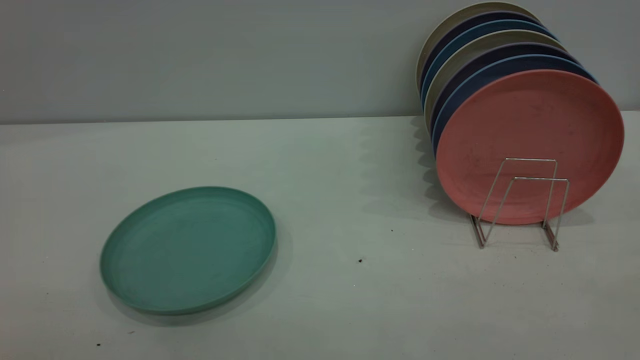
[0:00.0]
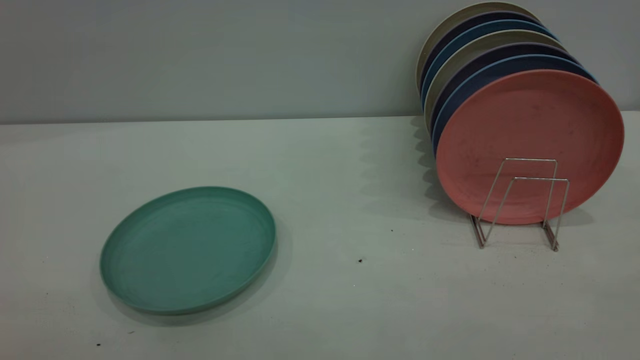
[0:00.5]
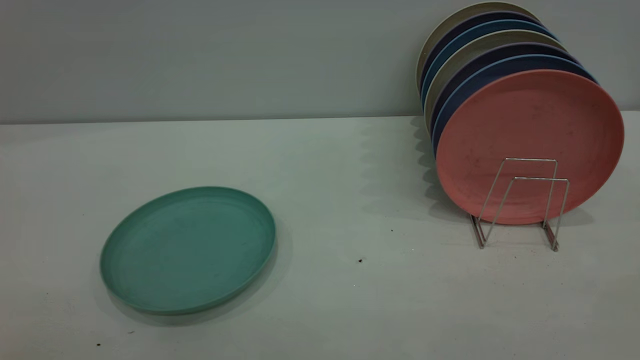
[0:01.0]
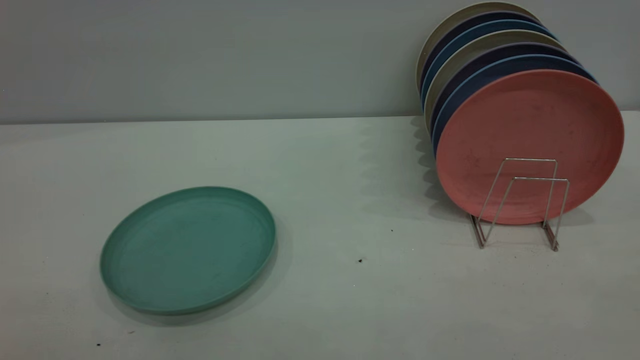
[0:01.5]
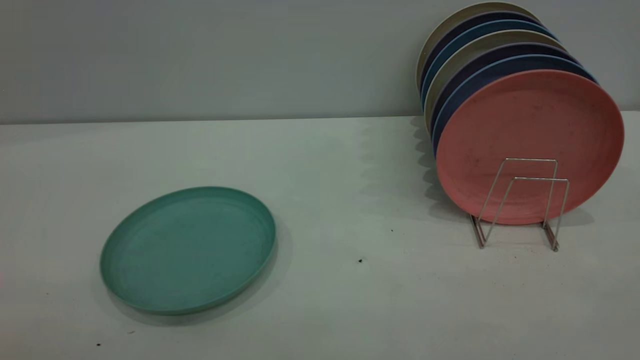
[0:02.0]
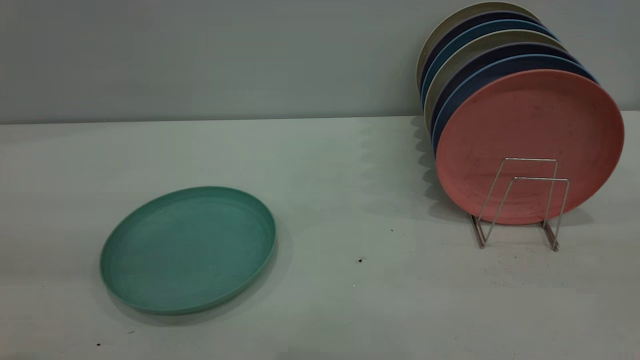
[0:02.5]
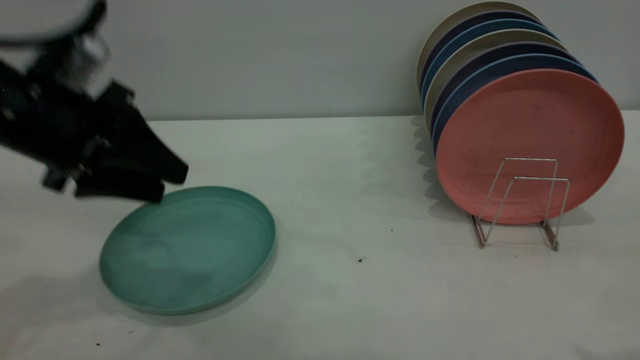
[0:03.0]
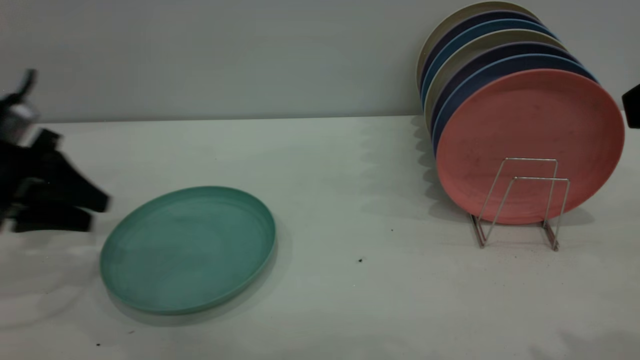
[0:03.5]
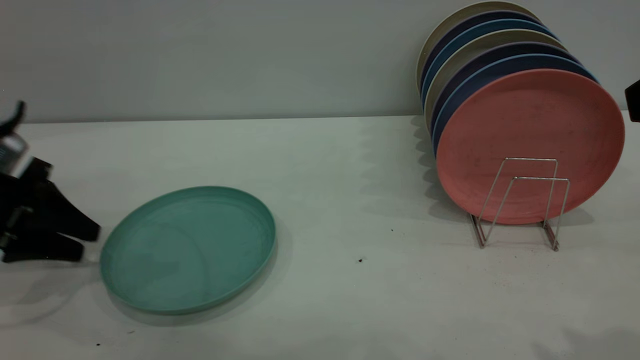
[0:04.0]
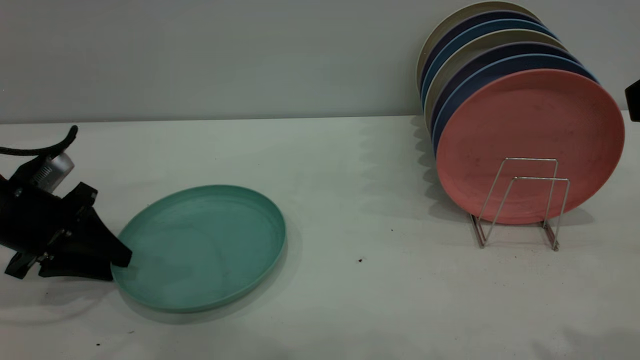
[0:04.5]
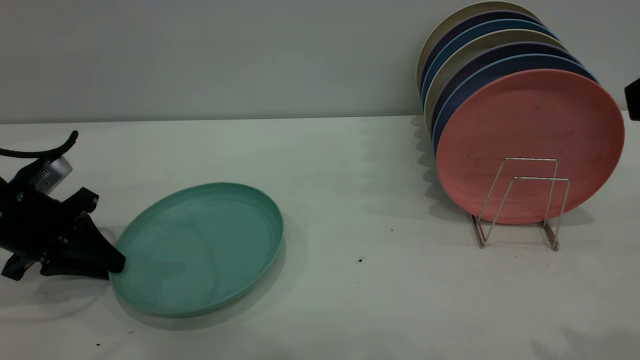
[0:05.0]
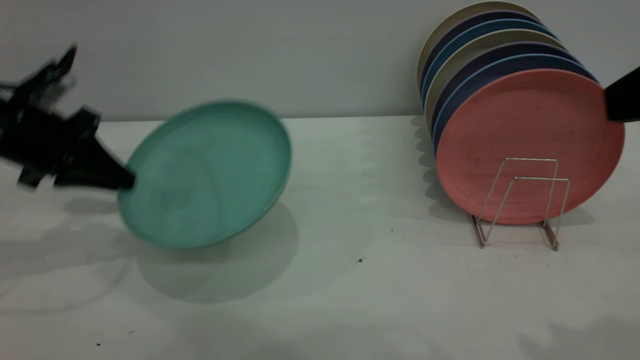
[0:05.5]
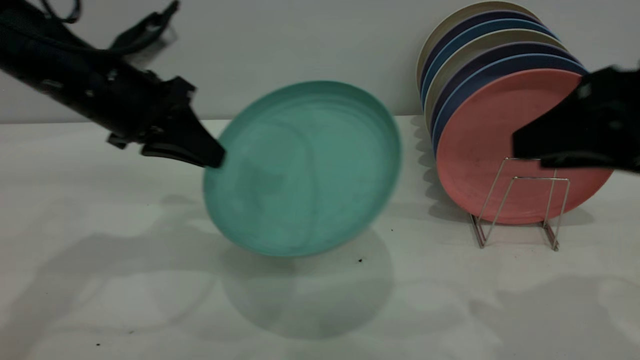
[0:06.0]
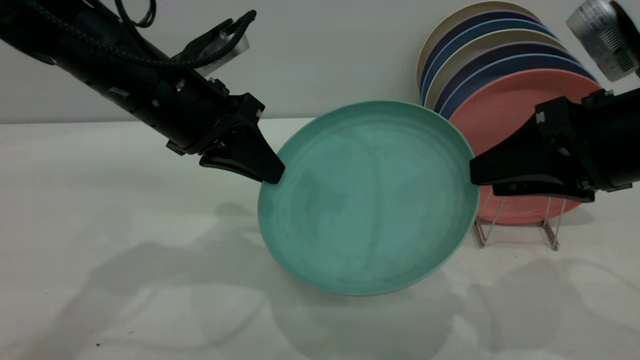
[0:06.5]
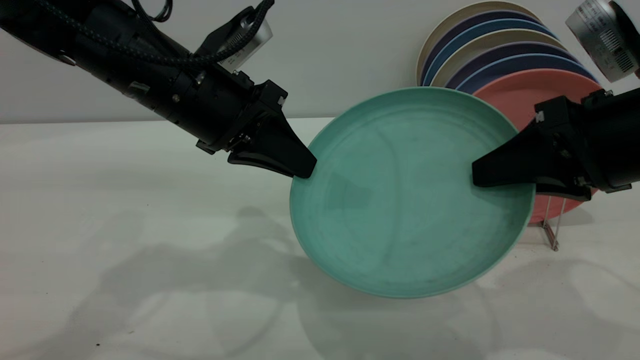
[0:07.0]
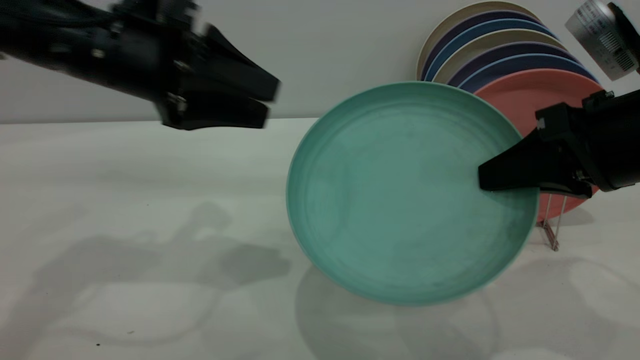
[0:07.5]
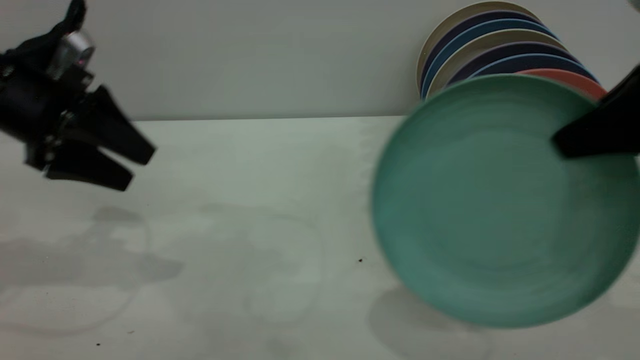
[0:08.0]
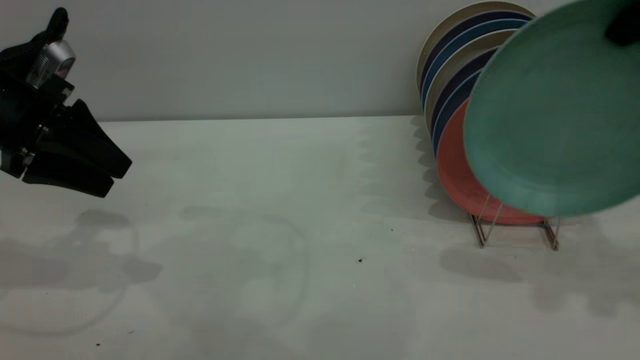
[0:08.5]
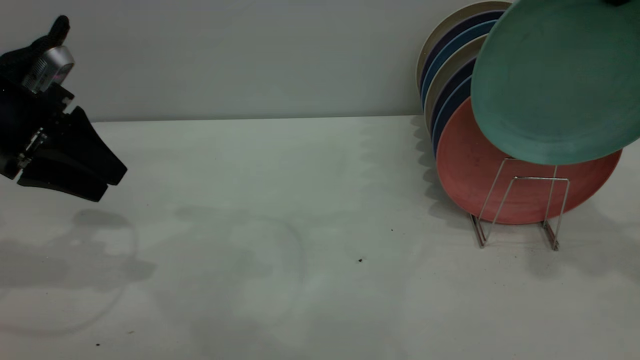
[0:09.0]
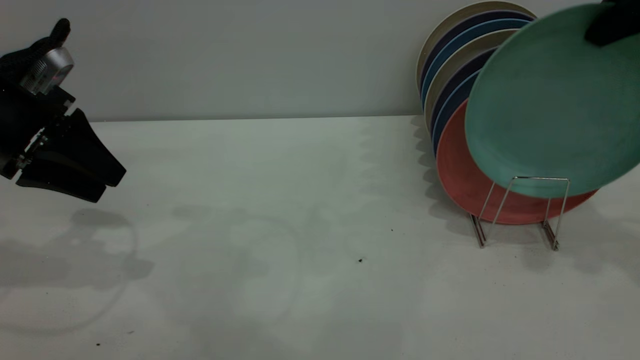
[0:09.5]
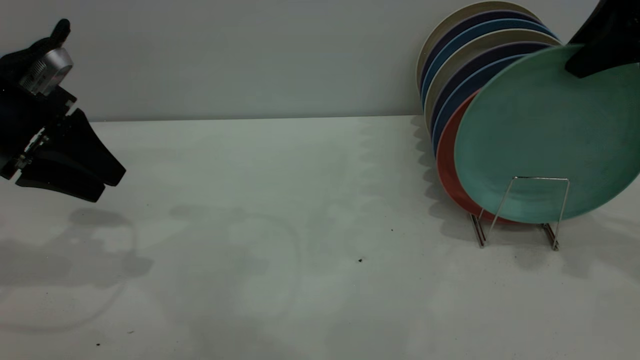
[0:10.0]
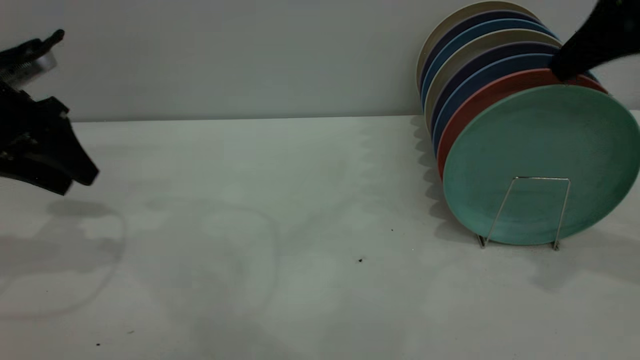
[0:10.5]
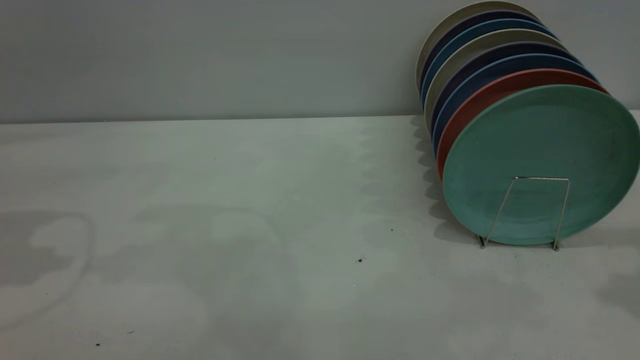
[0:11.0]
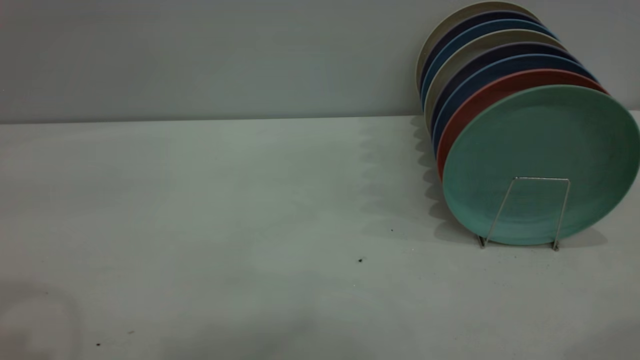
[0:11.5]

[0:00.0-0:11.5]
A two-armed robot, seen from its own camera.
Task of the whole recording: the left gripper grasp the green plate, the left gripper pass the green plate to the right gripper, and the right gripper place the green plate on the plate rack.
Step, 0:00.0 to 0:05.0: Pick up the plate with the right gripper.
Step, 0:05.5 to 0:07.5: Pass the plate from the right gripper to the left gripper.
Step, 0:08.0 to 0:10.5: Place the plate on the shelf.
0:02.0 to 0:04.0: The left gripper travels forward and downward by about 40 cm.
0:04.0 to 0:06.0: The right gripper travels downward and forward by approximately 10 cm; the left gripper is displaced to the right and upward by some 20 cm, and closes up.
0:06.0 to 0:07.5: The right gripper closes up. Meanwhile the left gripper reaches about 10 cm to the right, then returns, and opens.
0:07.5 to 0:09.5: The right gripper moves upward, forward and to the right, roughly 15 cm. Meanwhile the left gripper travels to the left by some 15 cm.
0:09.5 to 0:11.5: The left gripper travels upward and backward by about 25 cm; the right gripper travels backward and upward by approximately 25 cm, and opens.

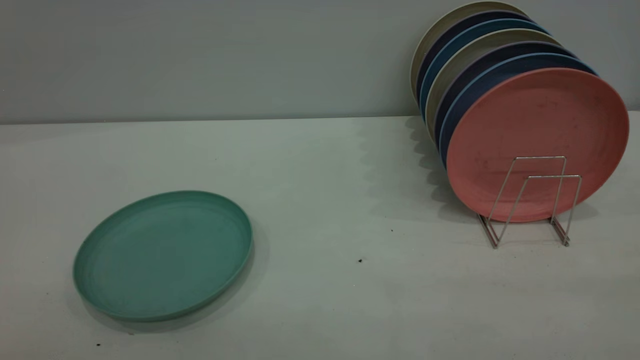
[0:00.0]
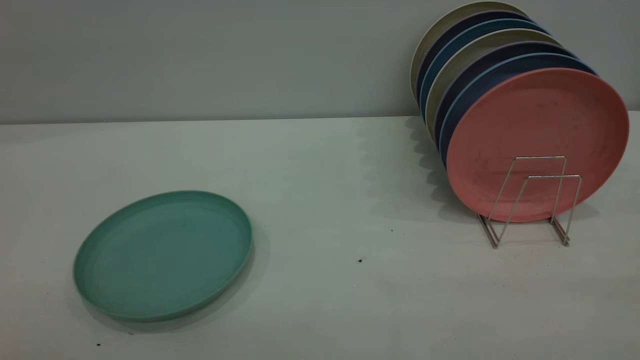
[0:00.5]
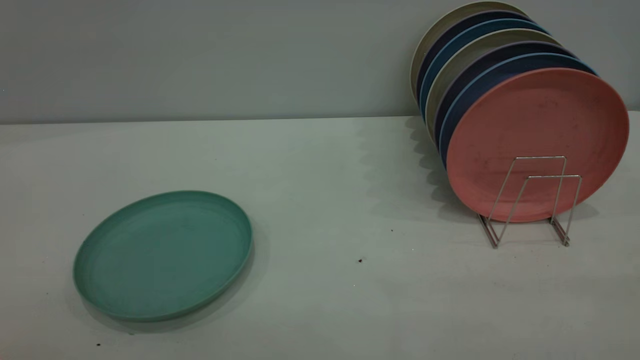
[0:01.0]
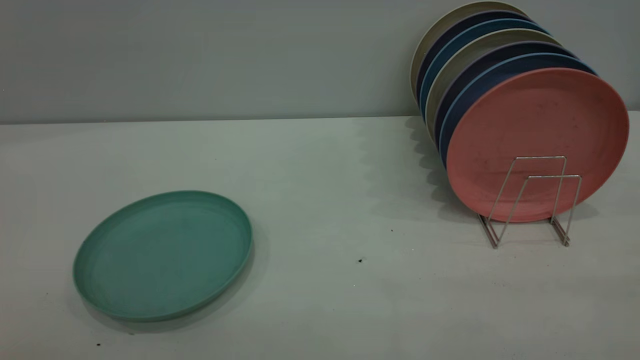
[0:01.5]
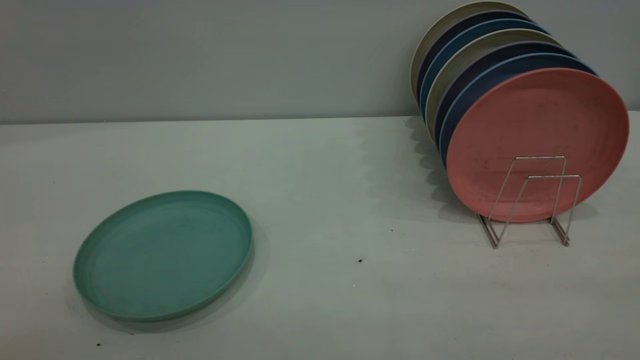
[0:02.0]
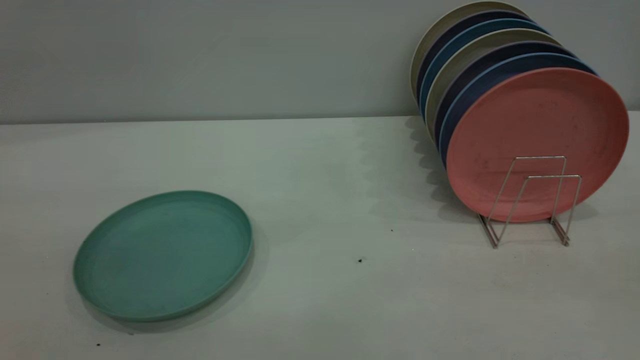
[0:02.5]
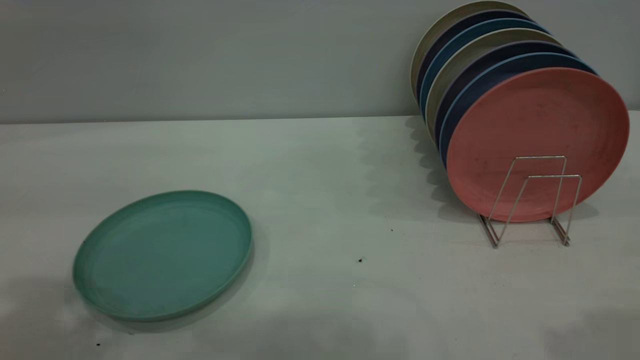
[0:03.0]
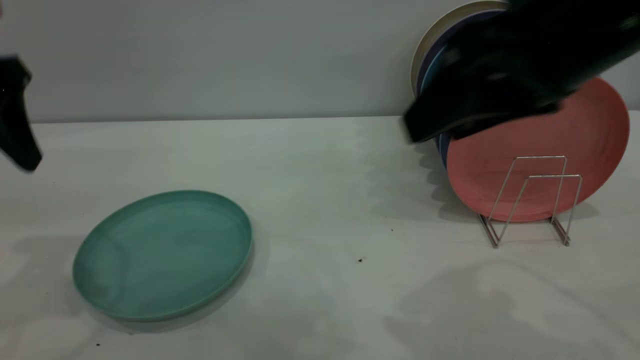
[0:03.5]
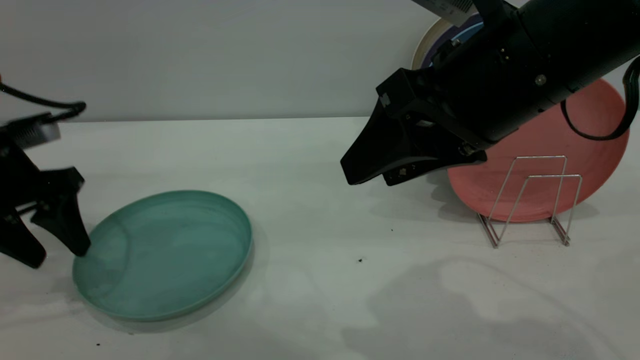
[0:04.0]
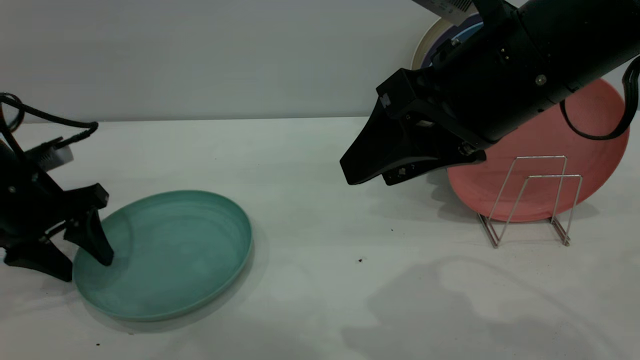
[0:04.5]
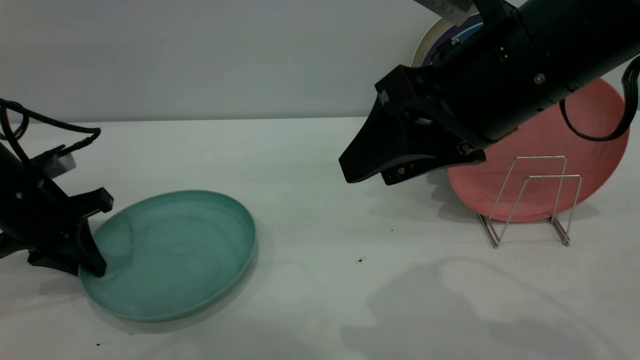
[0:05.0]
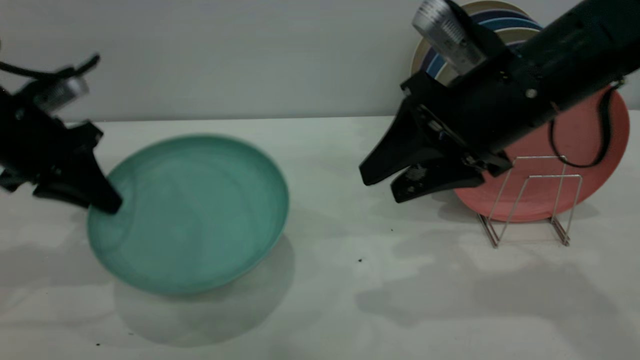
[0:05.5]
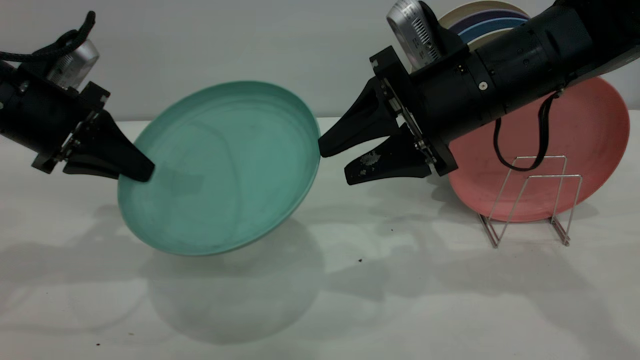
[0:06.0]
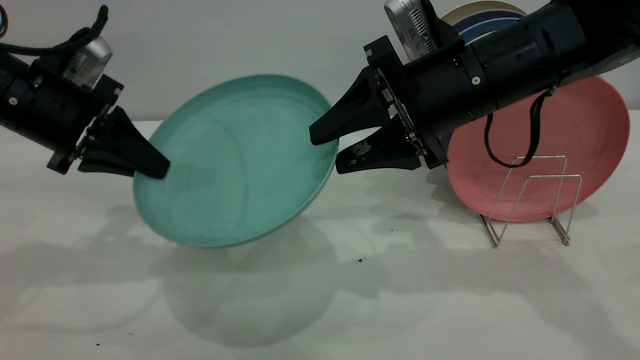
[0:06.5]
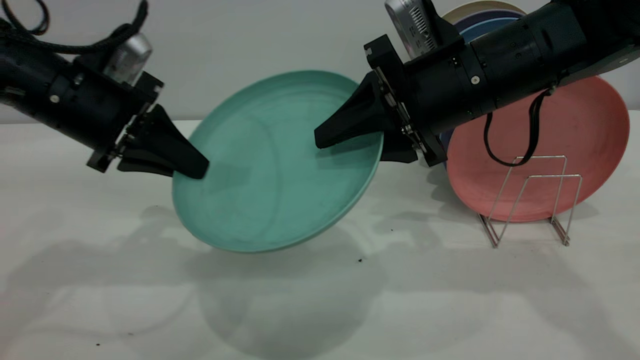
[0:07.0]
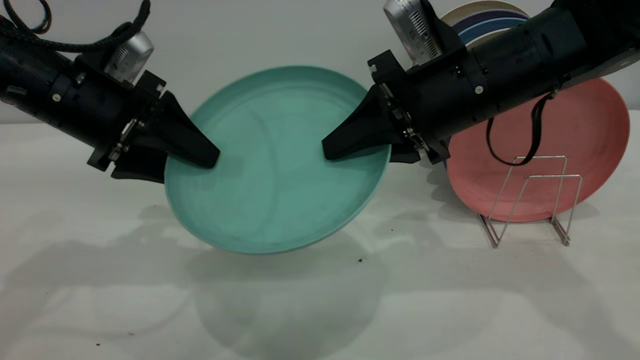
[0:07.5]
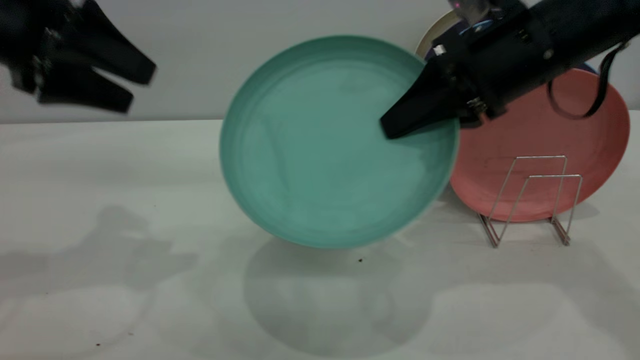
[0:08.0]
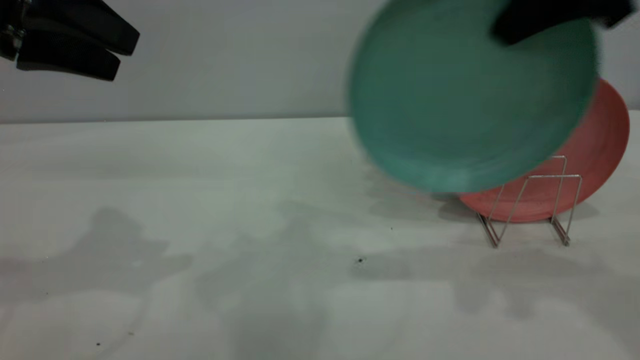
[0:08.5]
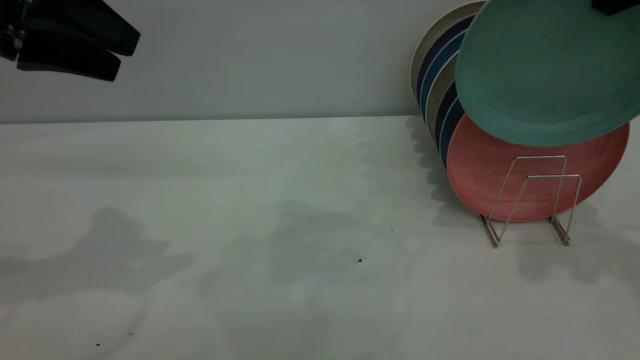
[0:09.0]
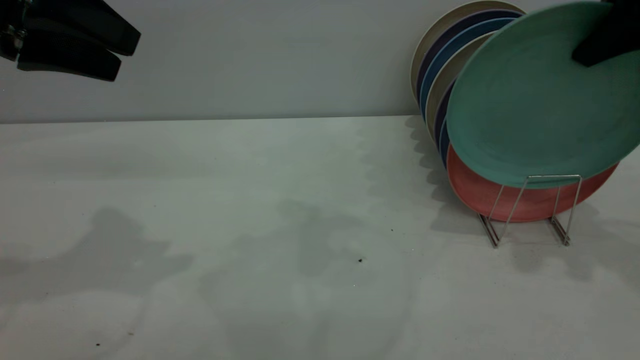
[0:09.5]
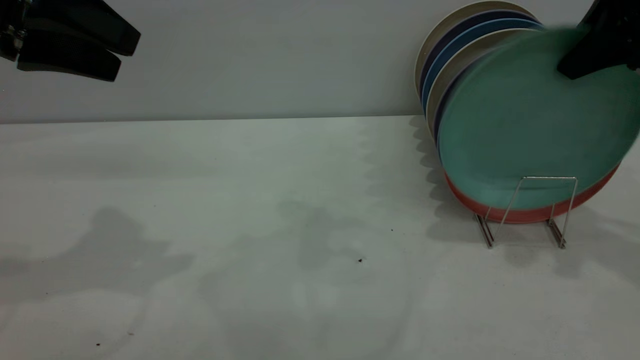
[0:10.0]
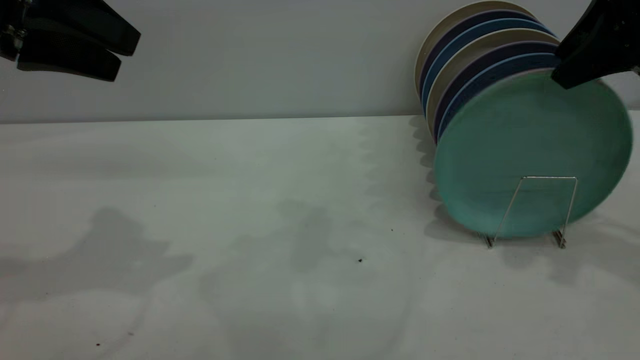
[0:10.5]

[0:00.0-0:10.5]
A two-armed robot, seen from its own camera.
Task of the whole recording: the left gripper grasp the green plate, the left gripper pass the green plate to the right gripper, and the right gripper place the green plate on the plate rack.
Step, 0:00.0 to 0:05.0: Pick up the plate with the left gripper.
Step, 0:06.0 to 0:07.5: Pass the plate from the left gripper to the right gripper.
0:00.0 to 0:02.0: The two grippers keep their place.
0:02.0 to 0:04.0: The right gripper goes approximately 35 cm forward and to the left, and opens up. The left gripper is displaced forward and downward by roughly 40 cm.
0:04.0 to 0:06.5: The right gripper shifts roughly 10 cm forward and downward, while the left gripper heads to the right, covering approximately 5 cm, and closes.
0:06.5 to 0:08.5: The left gripper shifts approximately 10 cm upward, and opens up. Meanwhile the right gripper shifts some 20 cm upward and to the right, and closes up.
0:08.5 to 0:10.5: The right gripper travels downward and to the right by some 10 cm, and opens up.
